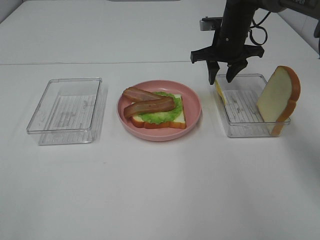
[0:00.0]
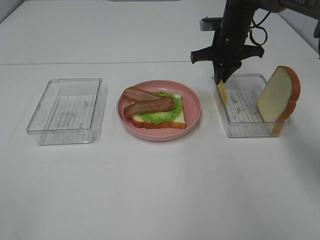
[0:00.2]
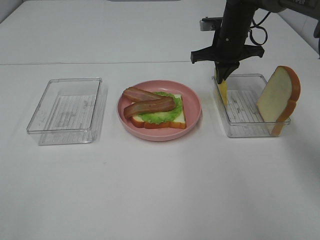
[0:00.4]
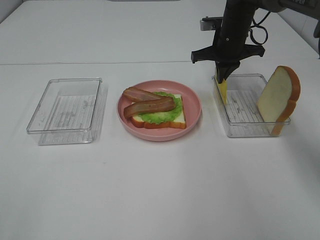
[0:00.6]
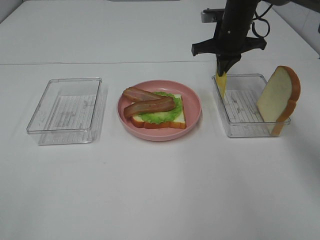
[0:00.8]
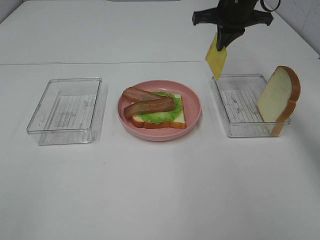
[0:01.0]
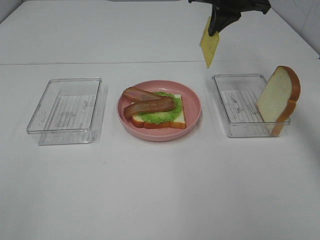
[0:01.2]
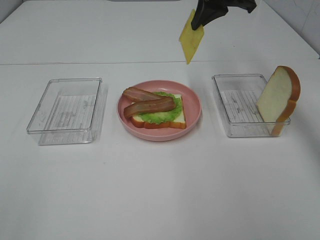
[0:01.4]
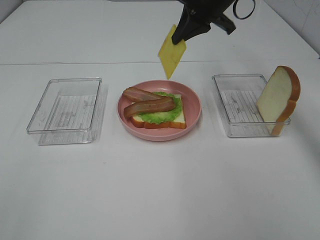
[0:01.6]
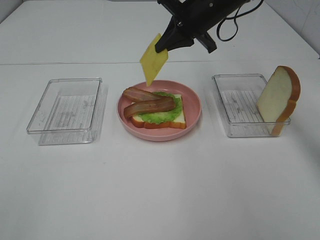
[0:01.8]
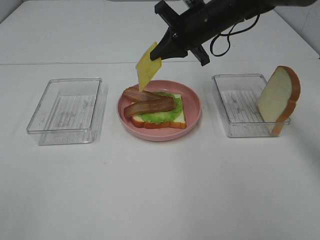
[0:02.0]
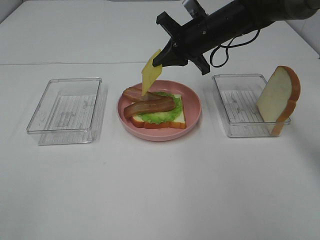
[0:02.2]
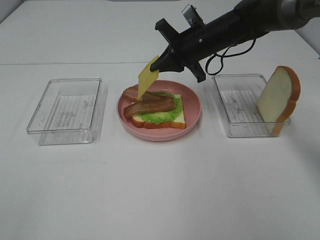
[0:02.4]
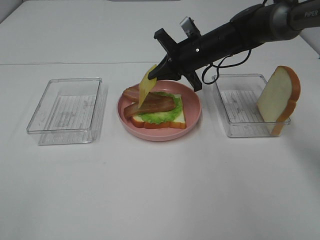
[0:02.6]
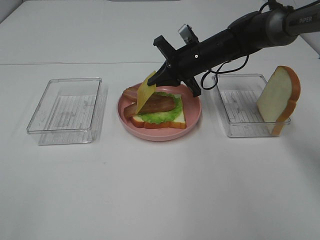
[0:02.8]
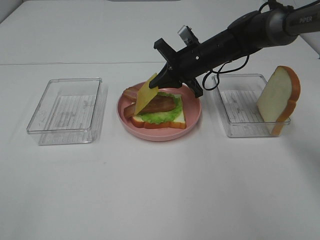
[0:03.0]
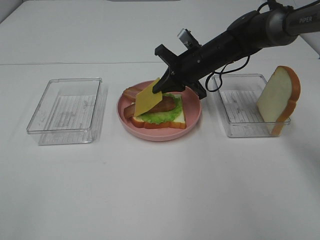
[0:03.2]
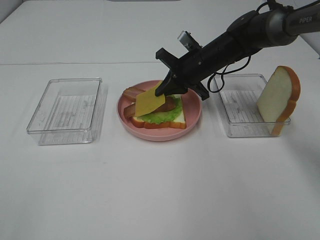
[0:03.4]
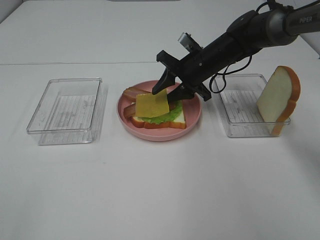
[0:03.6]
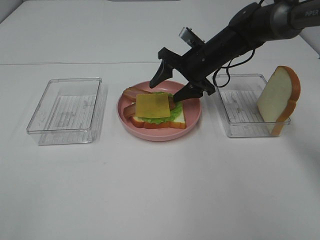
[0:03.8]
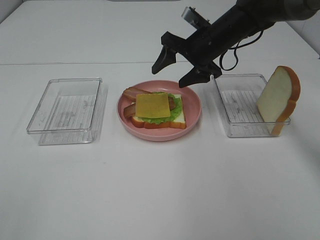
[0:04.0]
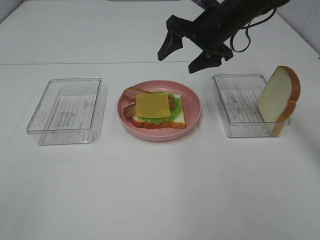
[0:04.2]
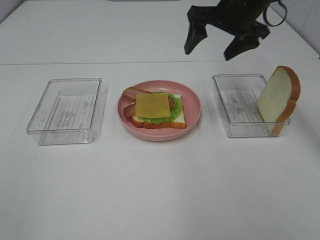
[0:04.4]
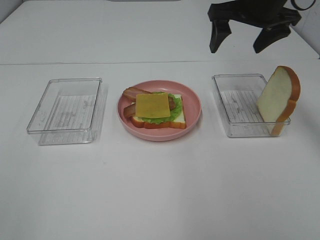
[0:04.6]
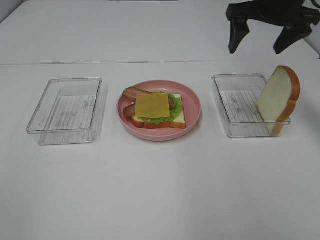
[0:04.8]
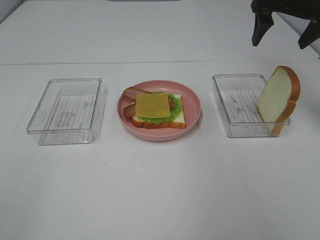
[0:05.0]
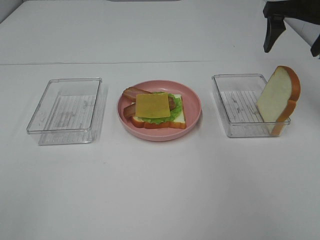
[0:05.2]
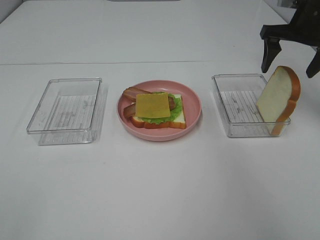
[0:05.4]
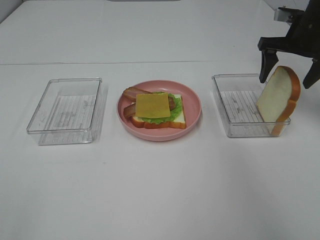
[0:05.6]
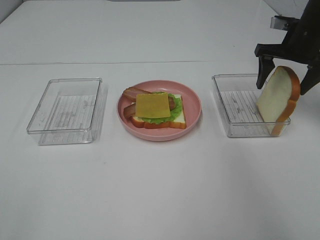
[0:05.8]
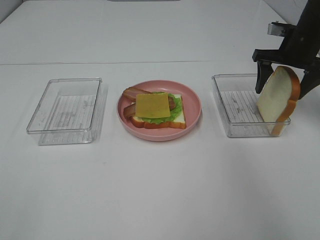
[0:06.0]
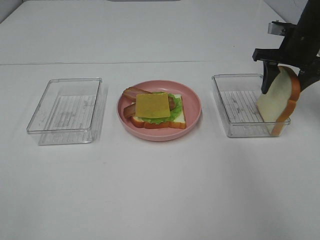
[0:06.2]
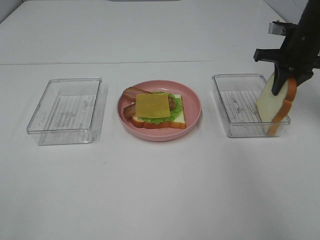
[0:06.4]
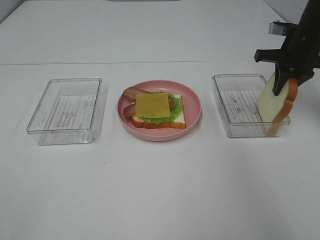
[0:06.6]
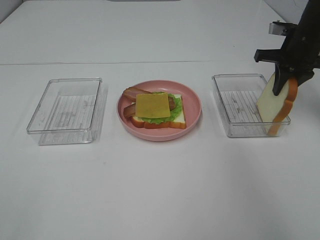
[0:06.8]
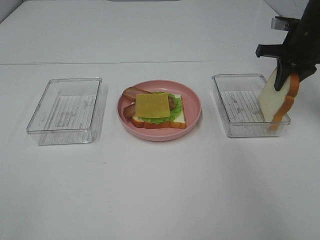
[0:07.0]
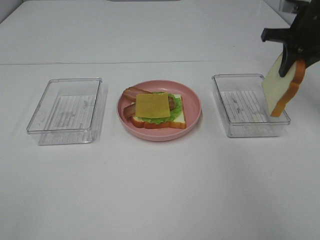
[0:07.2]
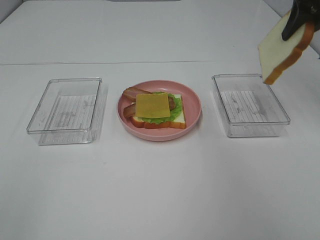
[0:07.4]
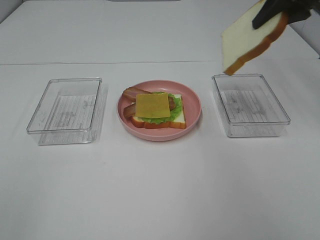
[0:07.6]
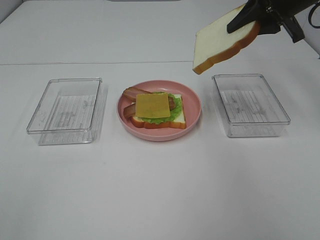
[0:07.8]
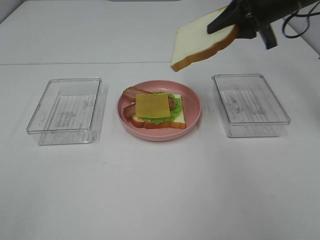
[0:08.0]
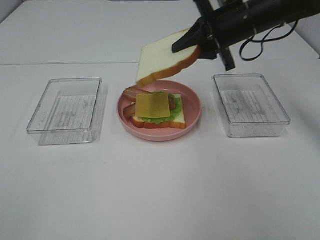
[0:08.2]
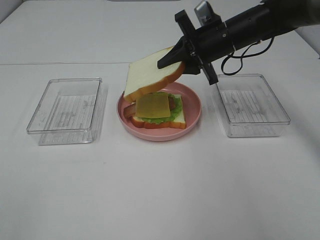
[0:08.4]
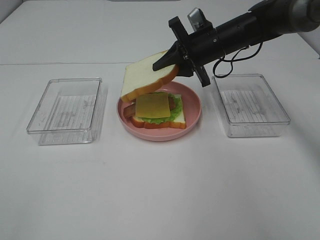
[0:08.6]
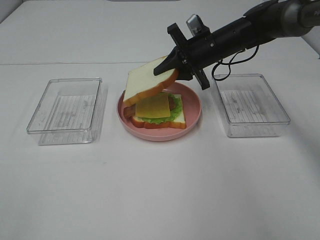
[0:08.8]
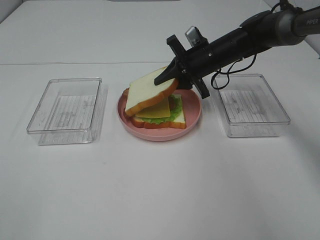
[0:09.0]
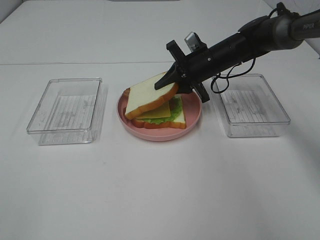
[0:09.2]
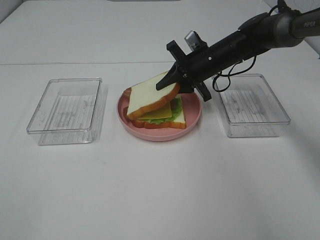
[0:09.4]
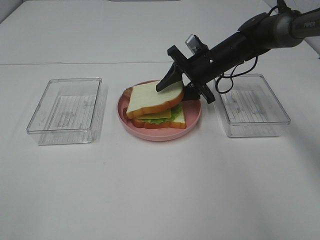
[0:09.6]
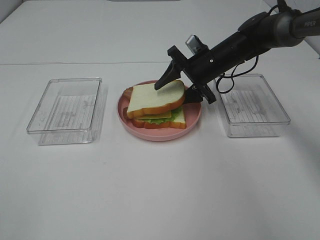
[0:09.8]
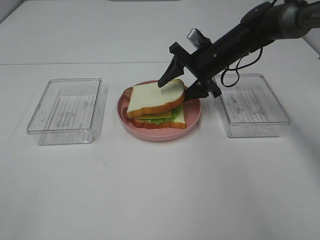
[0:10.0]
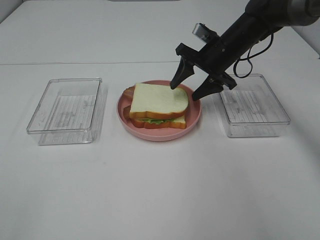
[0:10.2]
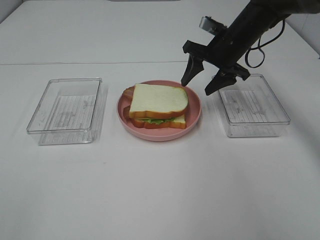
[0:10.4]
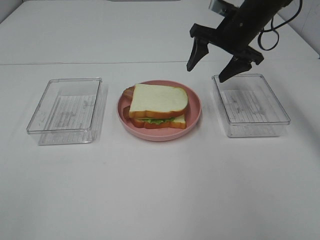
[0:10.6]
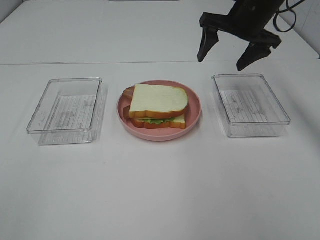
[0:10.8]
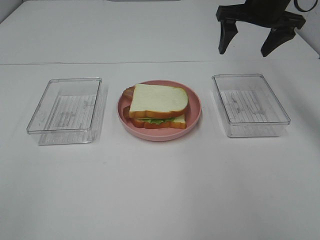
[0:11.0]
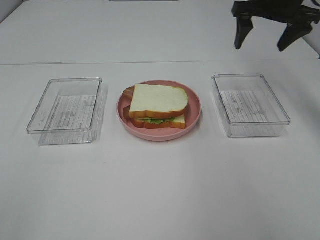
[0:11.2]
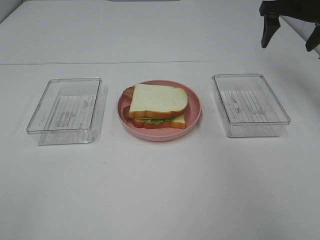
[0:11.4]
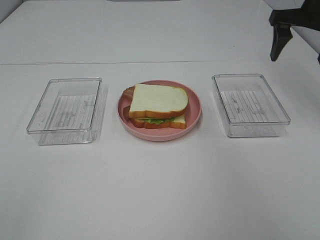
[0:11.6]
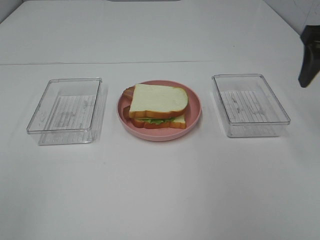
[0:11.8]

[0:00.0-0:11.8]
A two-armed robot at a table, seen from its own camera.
Task of the whole recording: Make sandwiches.
Step, 0:00.4 to 0:03.8: Right hand:place the cheese slice on top of the bacon.
Step, 0:04.0 to 0:06.4: Right hand:grab the bread slice.
Step, 0:06.6 to 0:10.4: Right hand:place the bread slice on the cheese slice.
0:00.0 to 0:01.4: The right gripper shifts roughly 15 cm upward, and closes up.
0:01.4 to 0:03.0: The right gripper shifts about 15 cm downward.
0:03.0 to 0:04.4: The right gripper heads upward, covering roughly 15 cm, and opens.
0:04.4 to 0:06.0: The right gripper is displaced to the right and downward by about 15 cm.
0:06.0 to 0:07.4: The right gripper moves upward, about 15 cm, and closes its fingers.
0:07.4 to 0:08.8: The right gripper heads downward and to the left, covering some 25 cm.
0:08.8 to 0:10.4: The right gripper opens its fingers.
0:10.4 to 0:11.8: The right gripper is displaced backward, to the right and upward by about 25 cm.

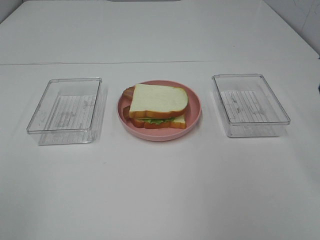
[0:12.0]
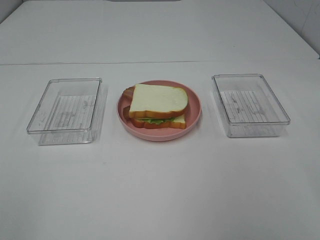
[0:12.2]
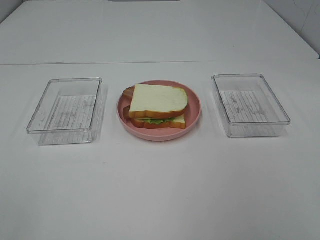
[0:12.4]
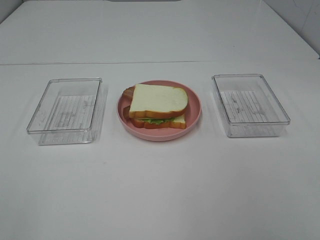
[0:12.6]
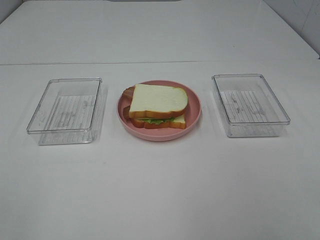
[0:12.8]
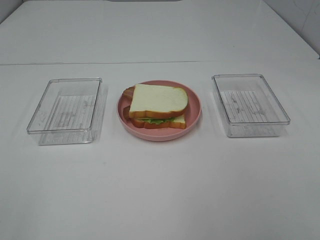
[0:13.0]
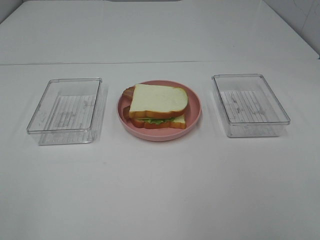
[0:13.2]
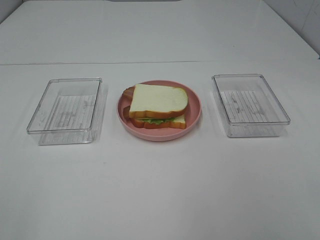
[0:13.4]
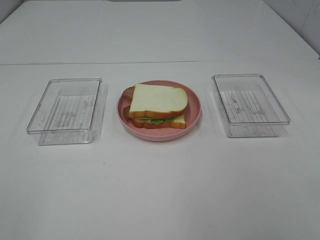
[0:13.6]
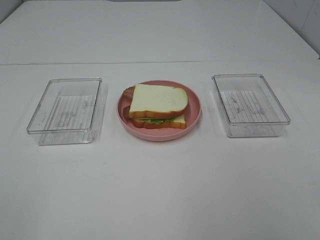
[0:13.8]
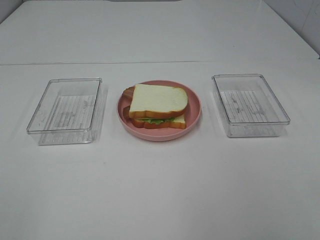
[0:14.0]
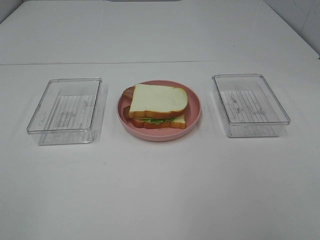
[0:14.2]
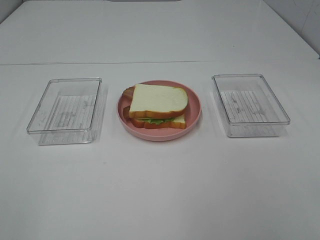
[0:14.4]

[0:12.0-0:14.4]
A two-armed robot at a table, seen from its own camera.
Task of the whole recording: Make sandwiches.
0:13.2 to 0:14.4: The two grippers keep their place.

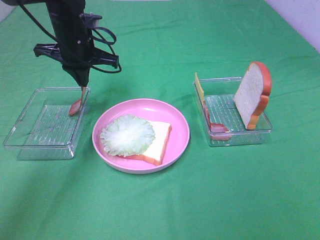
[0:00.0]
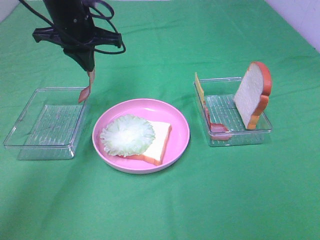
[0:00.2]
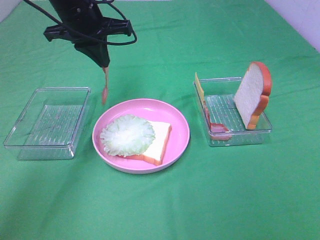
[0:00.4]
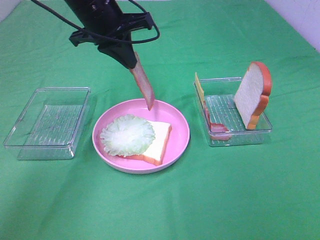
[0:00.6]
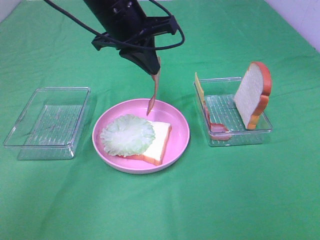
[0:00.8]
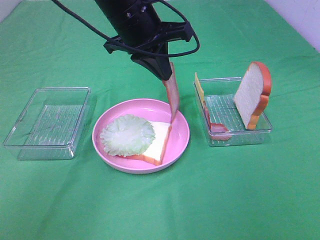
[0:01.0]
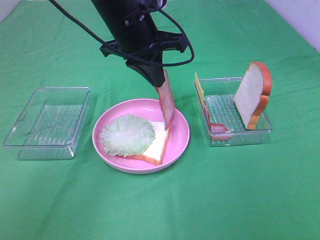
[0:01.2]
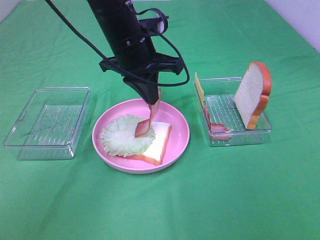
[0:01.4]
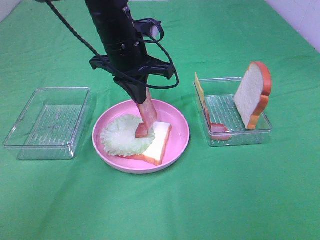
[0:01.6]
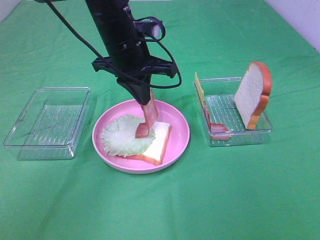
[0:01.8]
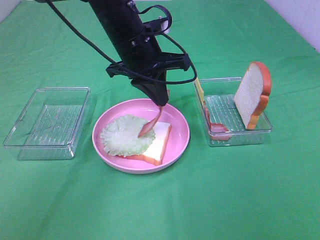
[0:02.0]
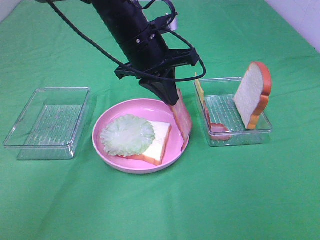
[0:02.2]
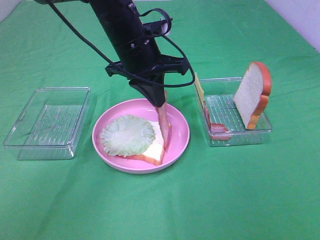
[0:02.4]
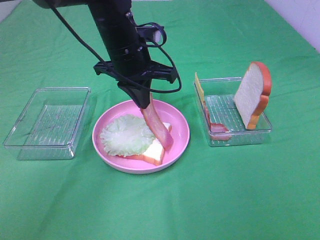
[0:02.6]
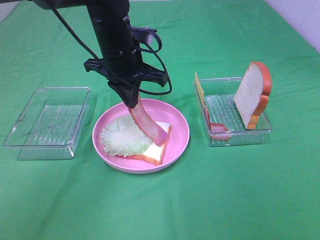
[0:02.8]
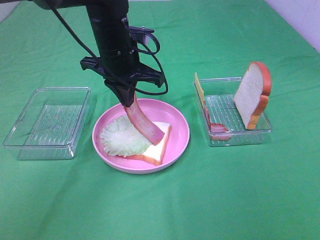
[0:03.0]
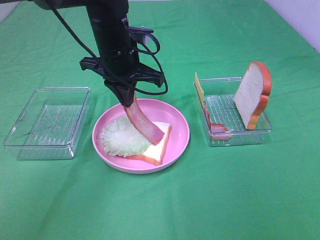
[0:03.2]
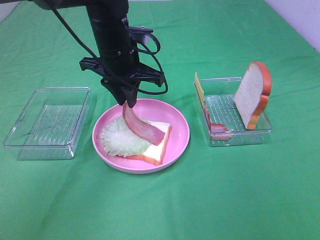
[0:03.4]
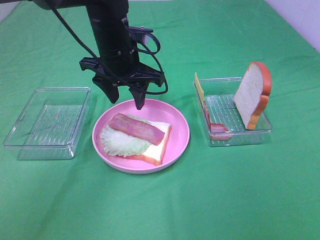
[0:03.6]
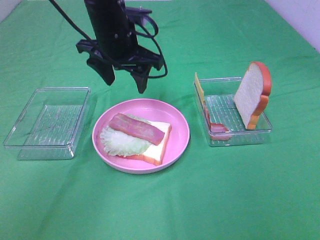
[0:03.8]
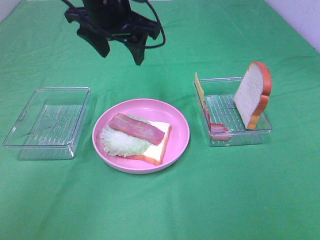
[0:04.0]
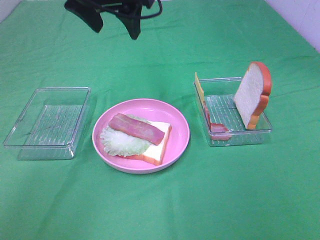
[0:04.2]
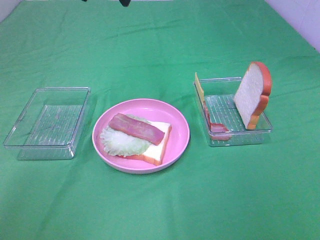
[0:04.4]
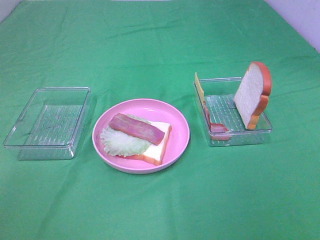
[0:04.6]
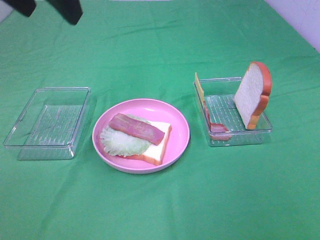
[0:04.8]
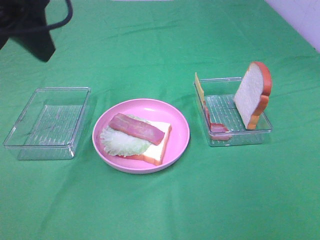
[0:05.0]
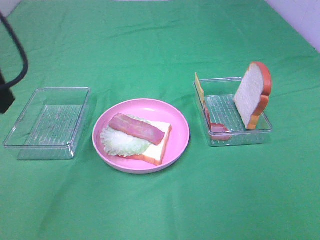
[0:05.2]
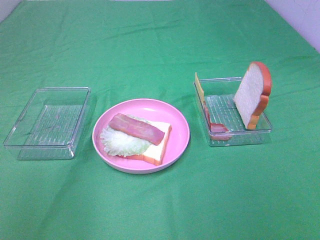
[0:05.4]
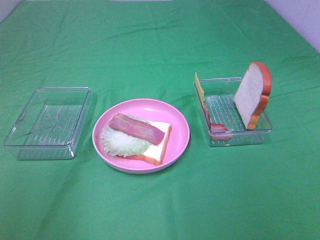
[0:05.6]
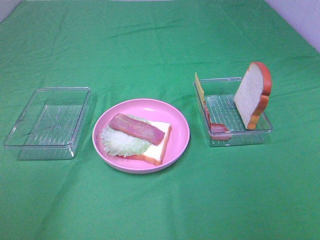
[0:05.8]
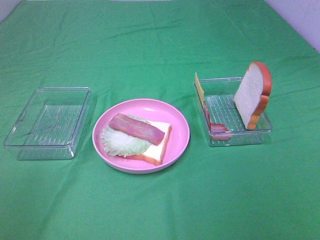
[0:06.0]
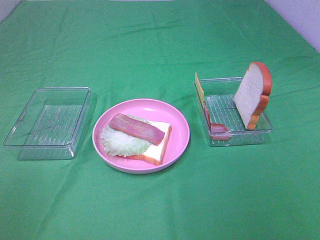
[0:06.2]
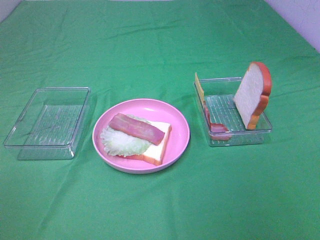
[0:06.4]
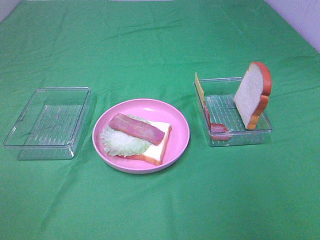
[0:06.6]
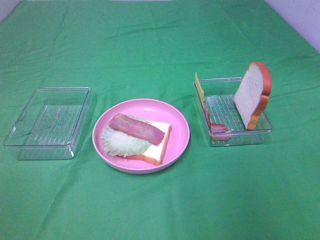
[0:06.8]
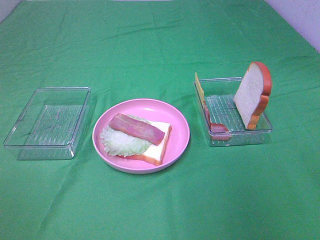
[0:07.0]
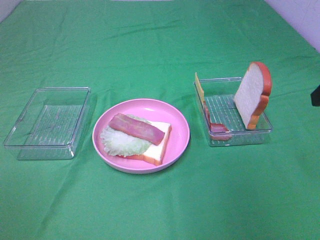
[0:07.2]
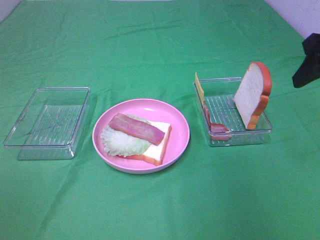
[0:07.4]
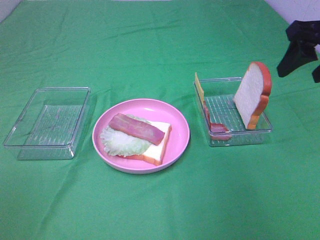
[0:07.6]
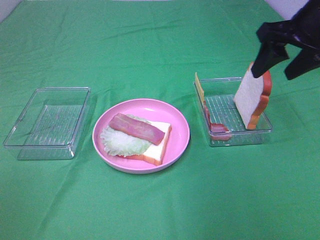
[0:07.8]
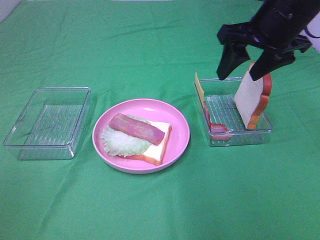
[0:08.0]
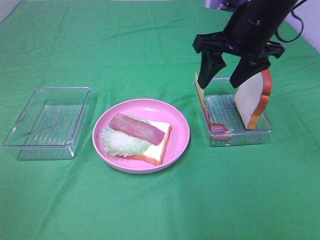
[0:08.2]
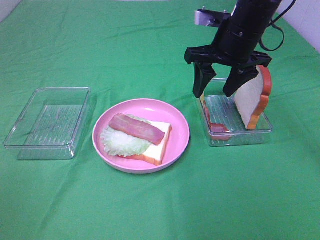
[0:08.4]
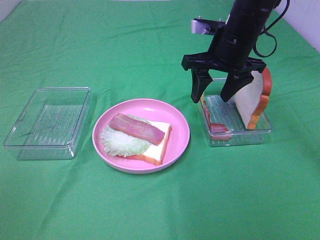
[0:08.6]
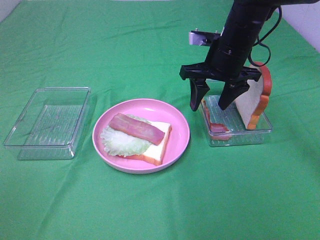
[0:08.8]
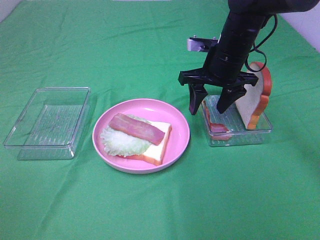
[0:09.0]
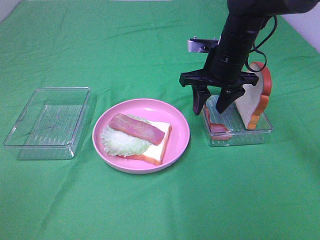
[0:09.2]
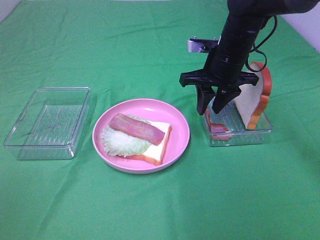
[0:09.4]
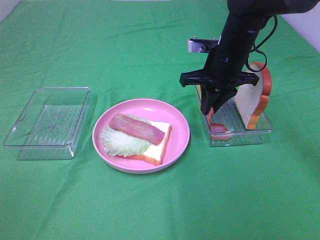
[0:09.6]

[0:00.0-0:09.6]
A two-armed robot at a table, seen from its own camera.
Task of the whole recording: Make sandwiches.
Step, 0:00.0 to 0:03.6: Left hand:place bacon on lettuce slice.
0:00.0 to 0:01.6: The left gripper shifts some 10 cm to the right and backward.
0:01.6 to 0:03.2: The grippers move only a little.
0:03.2 to 0:04.8: The left gripper moves upward, backward and to the left, about 25 cm, and opens up.
0:04.8 to 0:06.4: The left gripper travels backward, to the left and downward by some 35 cm.
0:06.4 to 0:08.0: The right gripper shifts roughly 30 cm forward.
0:08.0 to 0:09.6: The right gripper shifts some 10 cm downward and forward, and closes up.
